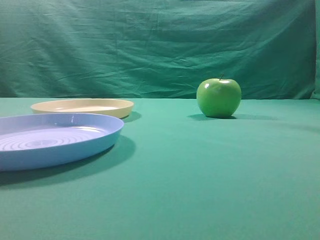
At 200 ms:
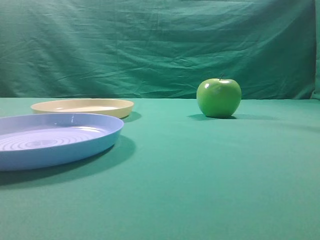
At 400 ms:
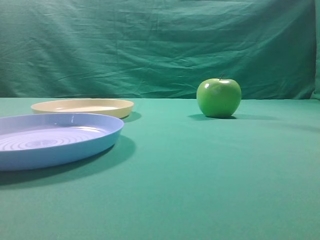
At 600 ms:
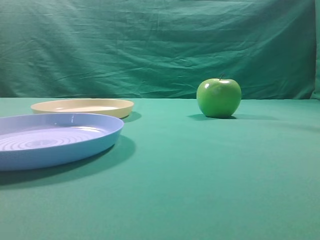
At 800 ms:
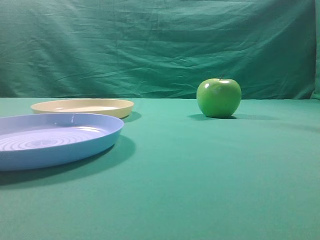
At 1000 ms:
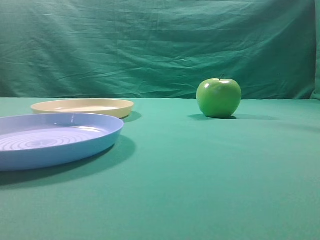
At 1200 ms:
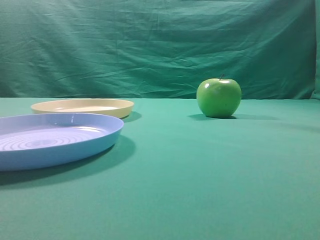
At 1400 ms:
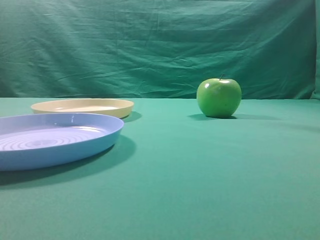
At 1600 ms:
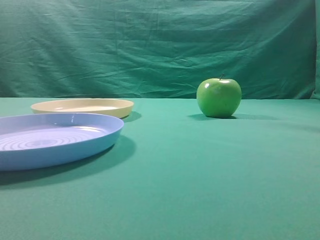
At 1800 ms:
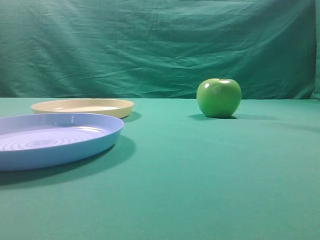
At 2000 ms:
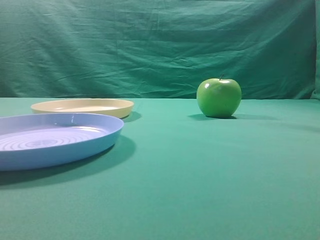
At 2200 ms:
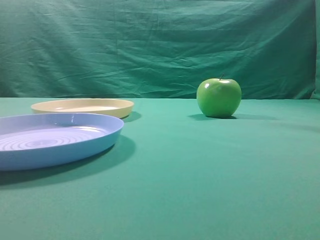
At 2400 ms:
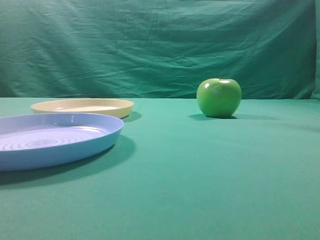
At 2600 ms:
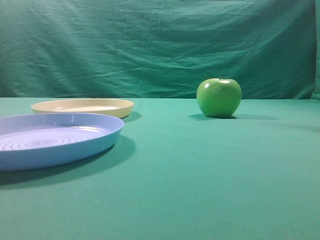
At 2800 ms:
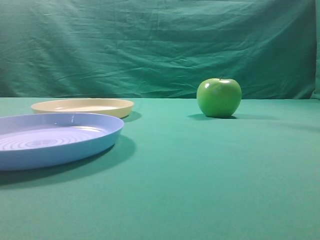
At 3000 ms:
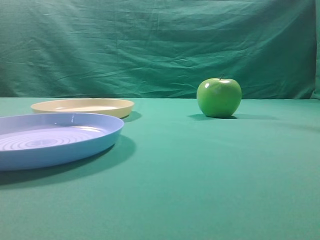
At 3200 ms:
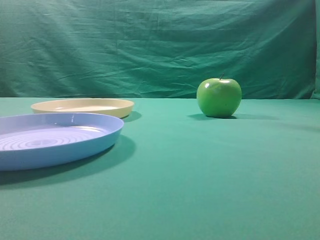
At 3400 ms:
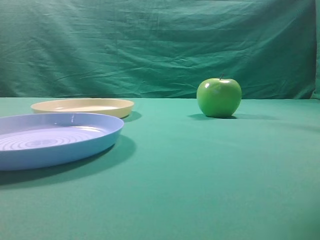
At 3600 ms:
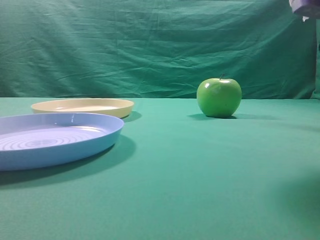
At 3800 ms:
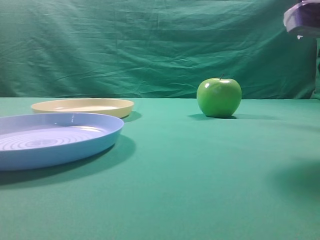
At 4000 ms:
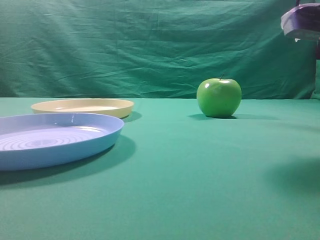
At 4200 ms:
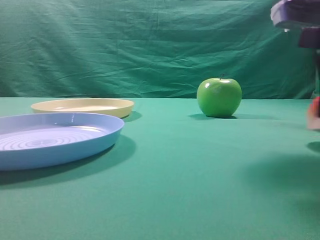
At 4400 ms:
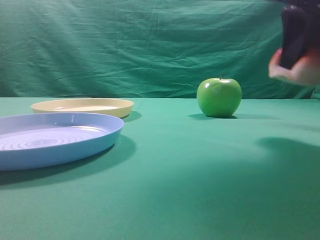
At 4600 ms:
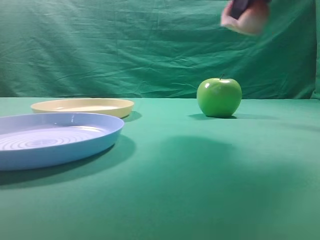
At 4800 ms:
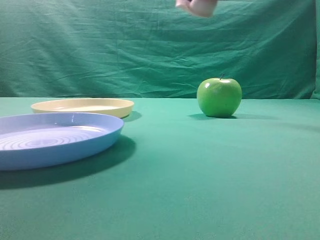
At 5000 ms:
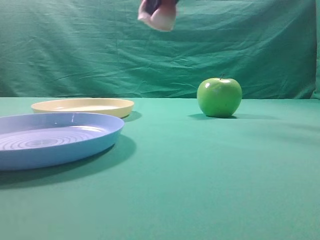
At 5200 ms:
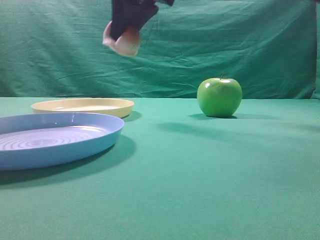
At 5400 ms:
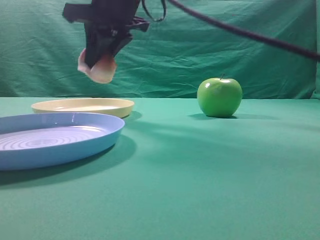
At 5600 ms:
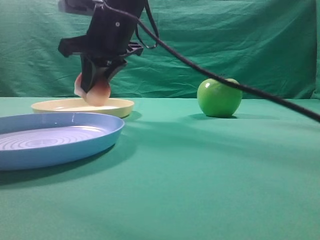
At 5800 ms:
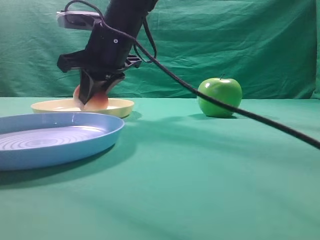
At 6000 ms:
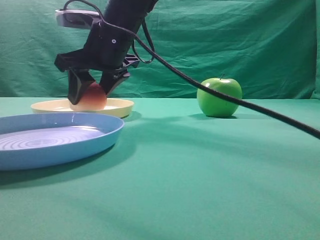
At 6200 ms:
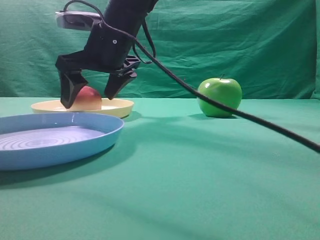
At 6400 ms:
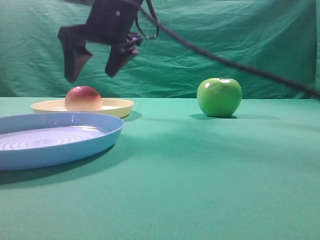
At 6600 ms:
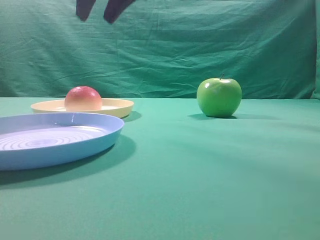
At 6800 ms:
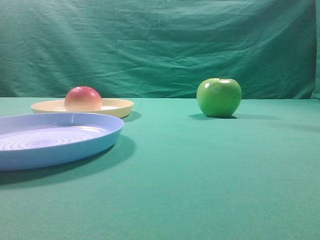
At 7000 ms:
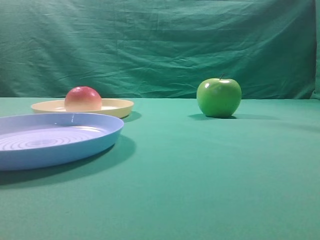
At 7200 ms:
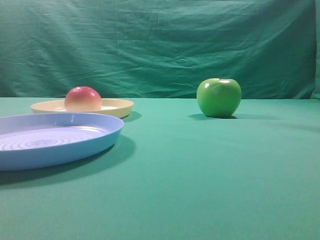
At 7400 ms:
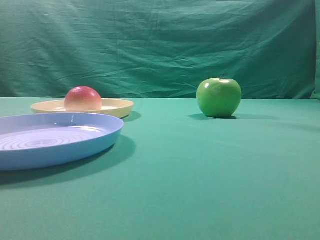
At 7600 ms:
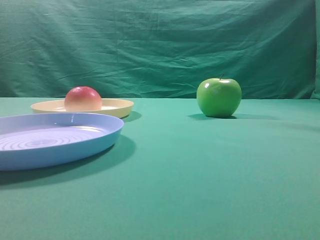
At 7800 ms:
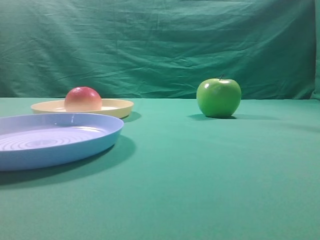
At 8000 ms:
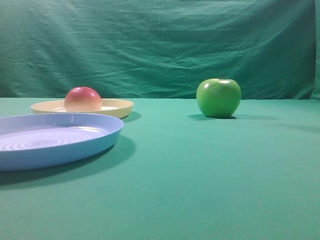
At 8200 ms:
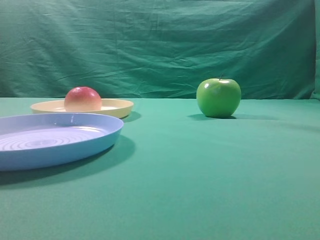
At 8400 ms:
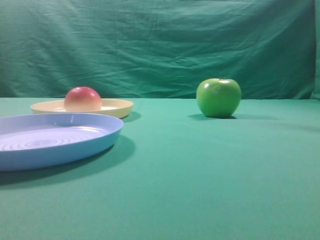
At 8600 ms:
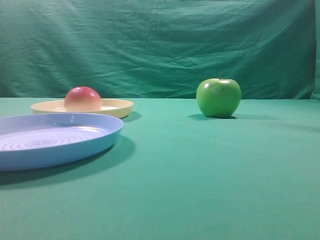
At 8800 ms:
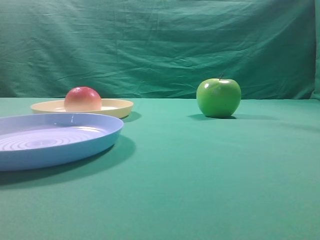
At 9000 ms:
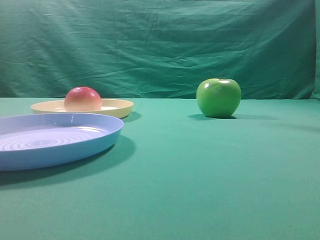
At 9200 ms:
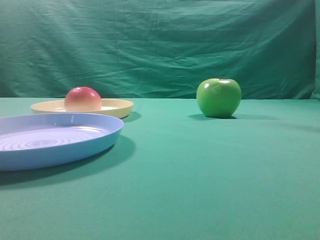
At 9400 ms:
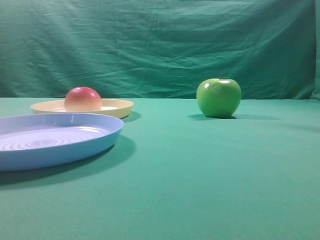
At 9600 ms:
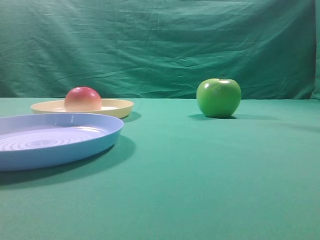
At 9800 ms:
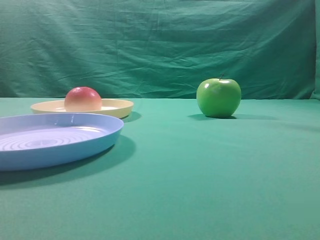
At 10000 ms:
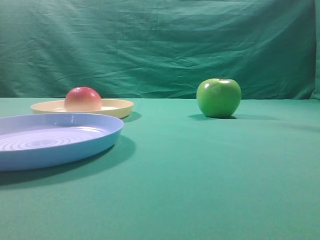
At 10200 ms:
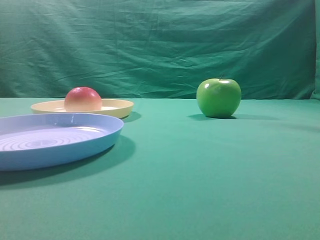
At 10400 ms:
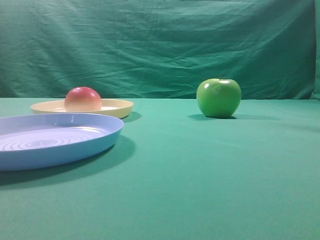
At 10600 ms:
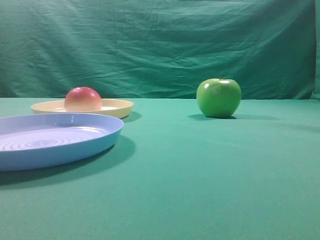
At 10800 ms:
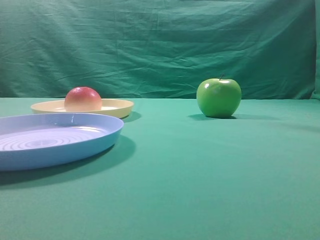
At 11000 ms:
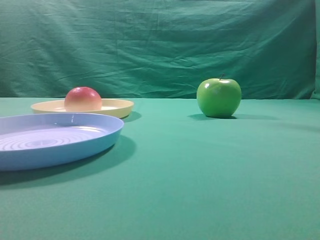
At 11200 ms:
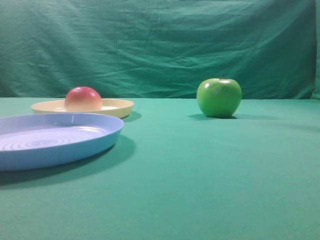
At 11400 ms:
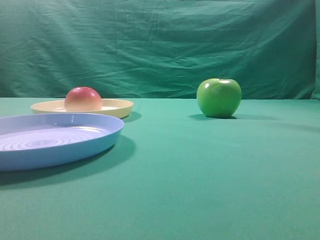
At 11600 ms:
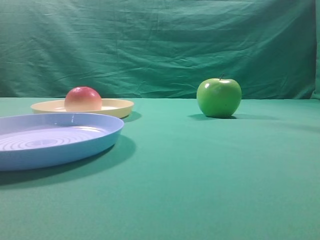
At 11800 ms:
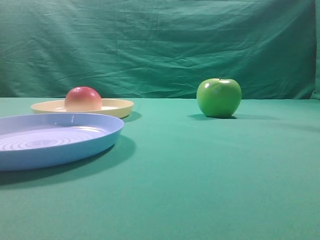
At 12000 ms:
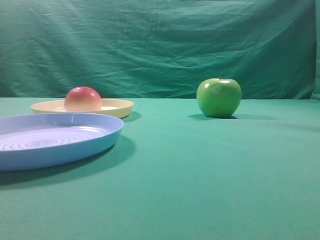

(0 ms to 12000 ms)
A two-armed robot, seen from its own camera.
Step, 4400 ms - 6400 ms: Place the picked object on the yellow plate.
